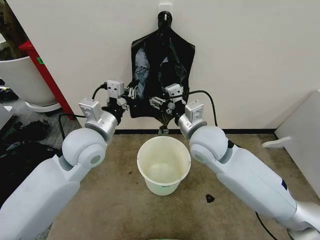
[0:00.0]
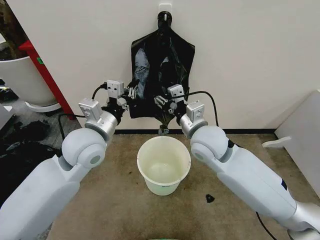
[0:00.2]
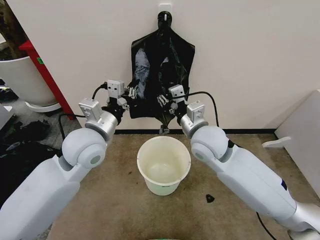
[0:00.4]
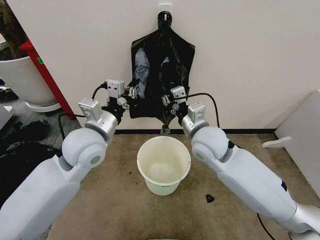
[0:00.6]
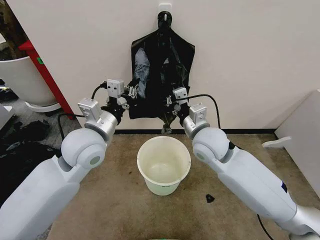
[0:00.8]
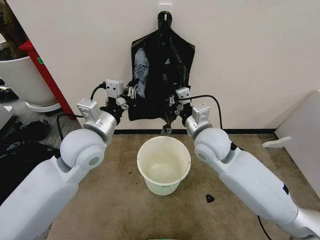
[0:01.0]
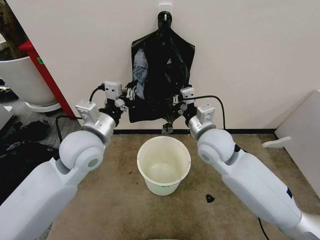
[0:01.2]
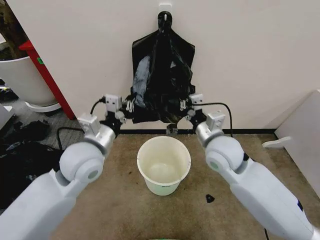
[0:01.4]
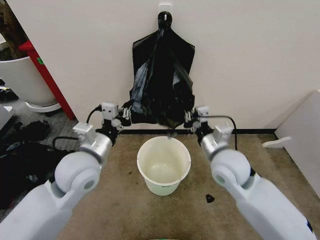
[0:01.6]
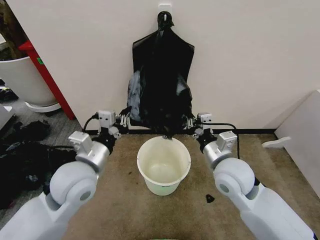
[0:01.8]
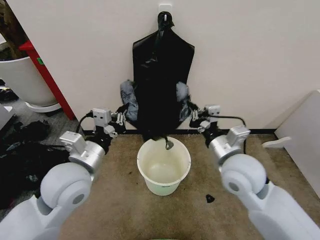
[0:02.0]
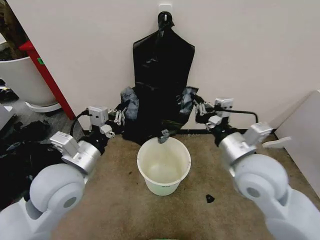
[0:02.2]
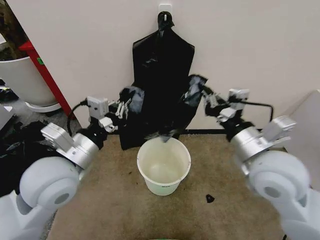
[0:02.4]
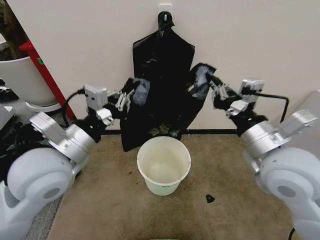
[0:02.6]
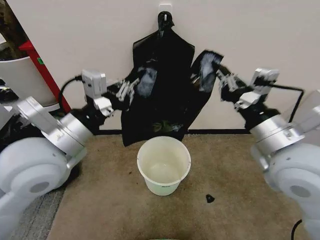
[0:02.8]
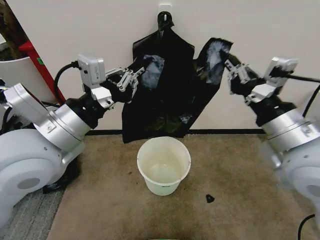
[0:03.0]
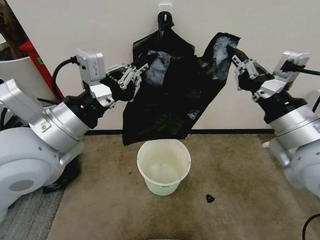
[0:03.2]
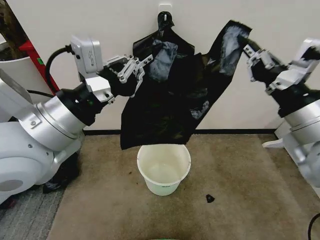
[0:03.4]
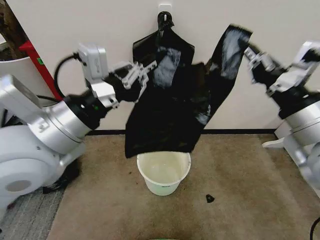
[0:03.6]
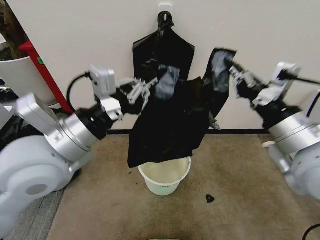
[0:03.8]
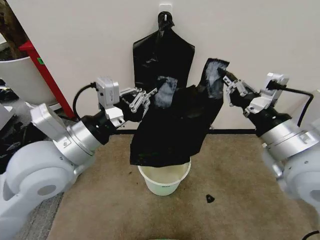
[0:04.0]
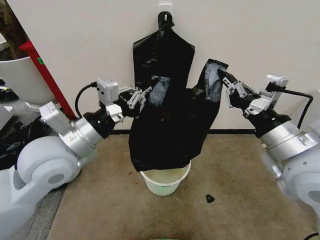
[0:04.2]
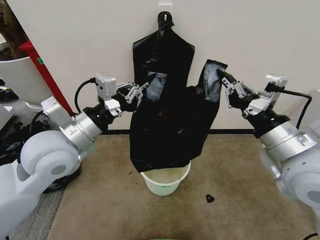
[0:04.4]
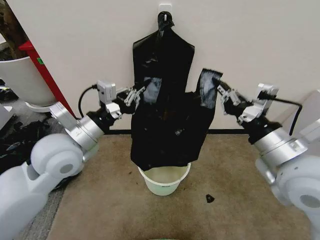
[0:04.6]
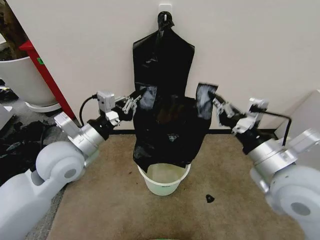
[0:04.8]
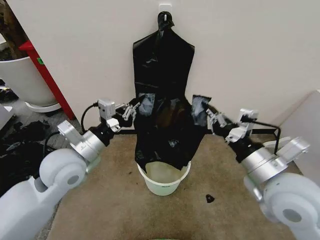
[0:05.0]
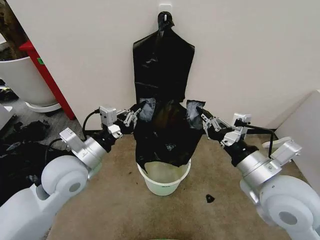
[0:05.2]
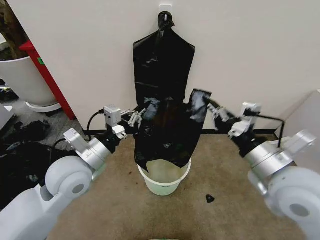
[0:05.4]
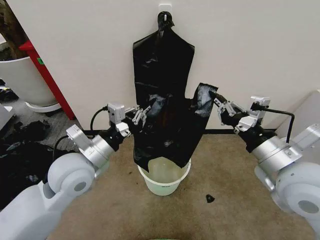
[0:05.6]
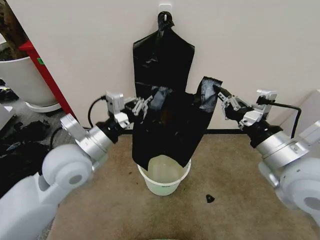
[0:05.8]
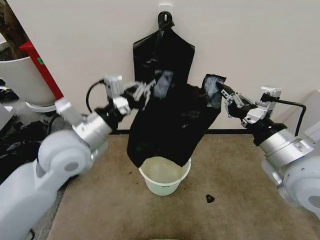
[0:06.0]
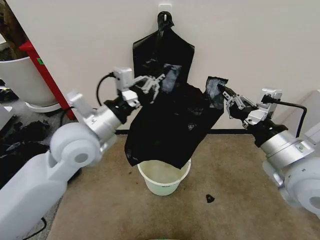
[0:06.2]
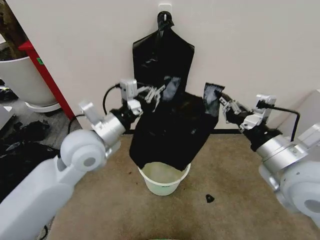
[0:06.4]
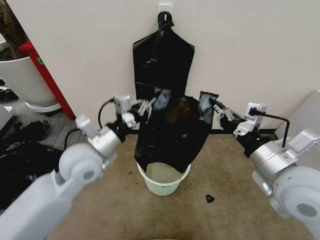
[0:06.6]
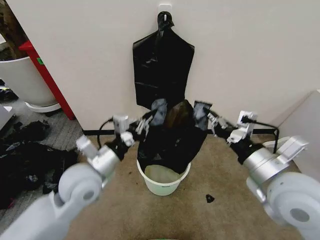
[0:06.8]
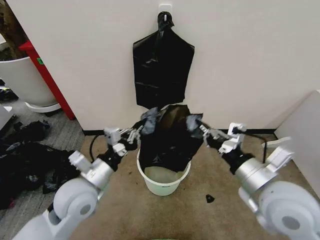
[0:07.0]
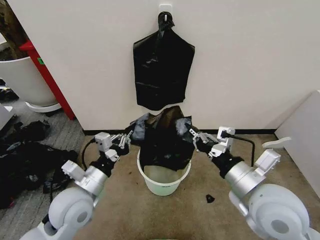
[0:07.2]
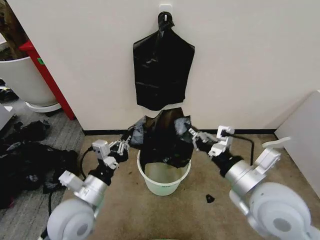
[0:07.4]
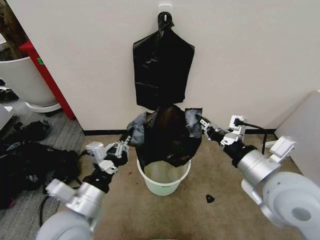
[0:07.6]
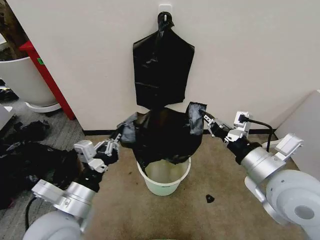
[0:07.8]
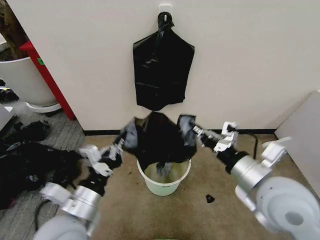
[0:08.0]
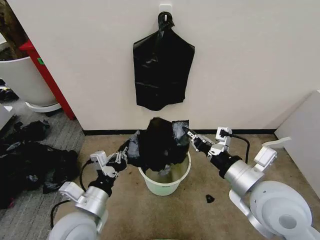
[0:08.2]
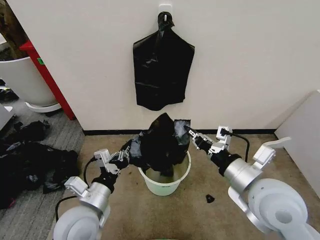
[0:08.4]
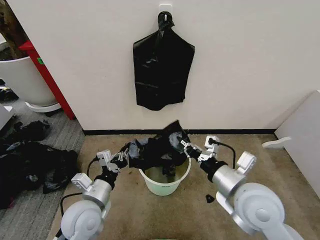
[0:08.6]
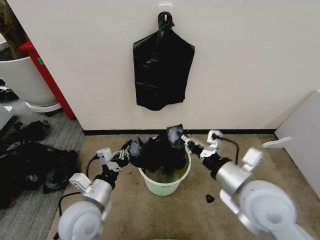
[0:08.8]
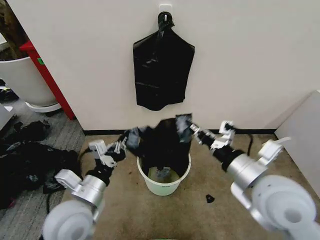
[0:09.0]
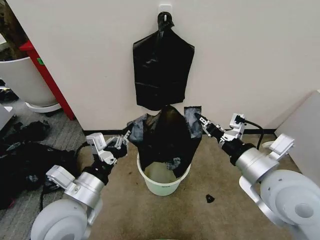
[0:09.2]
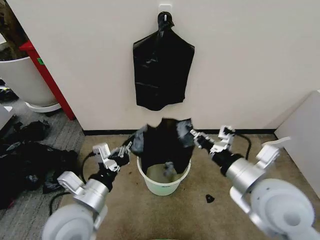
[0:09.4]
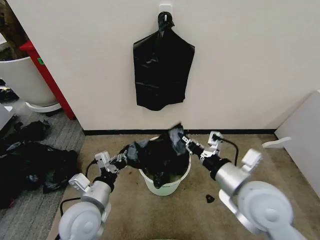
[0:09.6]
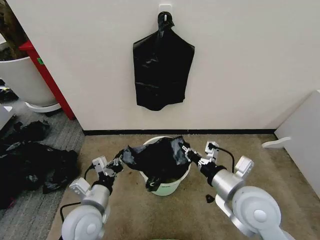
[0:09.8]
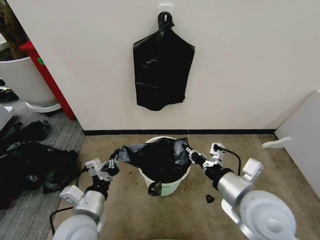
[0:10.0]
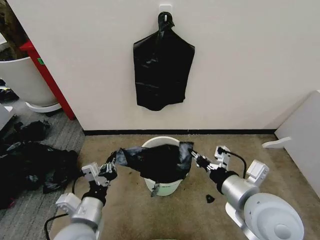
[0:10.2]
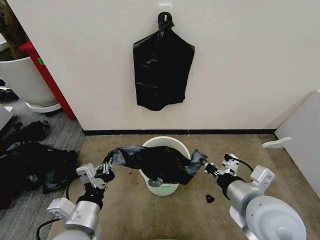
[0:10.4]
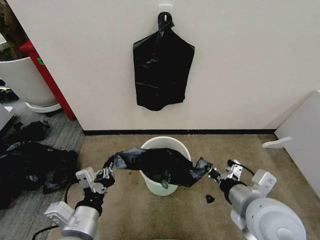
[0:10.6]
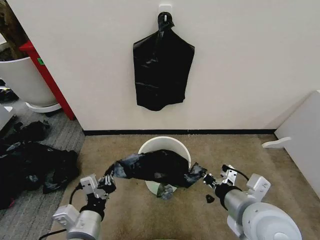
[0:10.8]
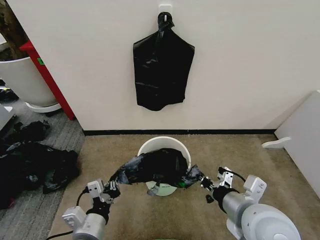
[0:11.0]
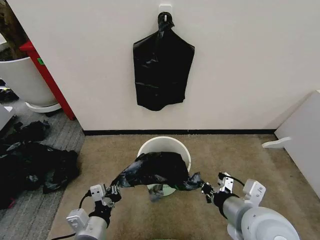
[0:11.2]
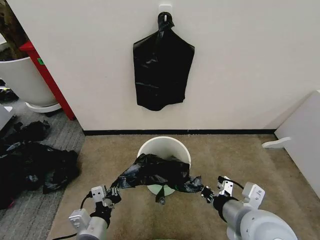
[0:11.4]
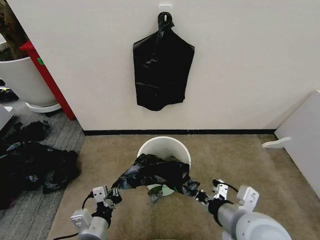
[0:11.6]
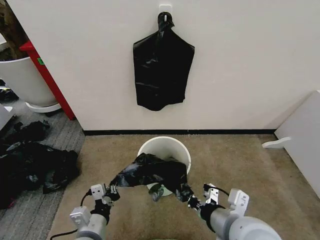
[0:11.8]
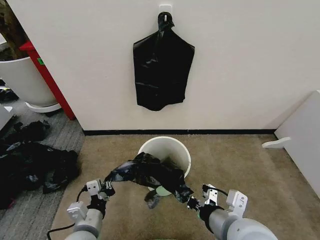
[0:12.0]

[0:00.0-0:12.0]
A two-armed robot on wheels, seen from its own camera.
Task of the whole recording: Place the garbage bag over the trash bin.
0:00.0 to 0:01.6: The right gripper is displaced to the right and downward by about 10 cm, and closes its fingers; the left gripper shifts by about 5 cm.
0:01.6 to 0:03.0: The right gripper shifts about 20 cm upward, backward and to the right. The left gripper is displaced upward by some 15 cm.
0:03.0 to 0:04.4: The left gripper ends up about 5 cm from where it was.
0:04.4 to 0:06.0: The left gripper reaches some 10 cm downward, then returns.
0:06.0 to 0:07.6: The left gripper travels downward and backward by some 15 cm.
0:07.6 to 0:09.0: The left gripper goes downward and returns, about 5 cm each way.
0:09.0 to 0:10.4: The left gripper goes up and down, some 10 cm each way, reversing 2 times.
0:10.4 to 0:12.0: The right gripper ends up roughly 5 cm from where it was; the left gripper heads downward, covering about 10 cm.

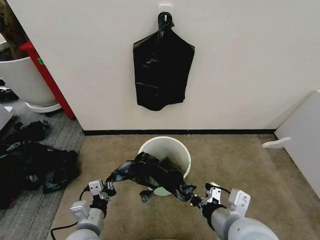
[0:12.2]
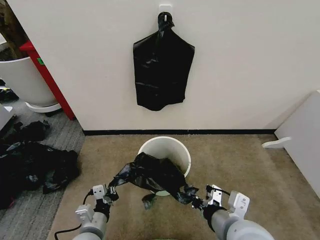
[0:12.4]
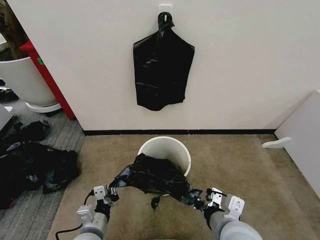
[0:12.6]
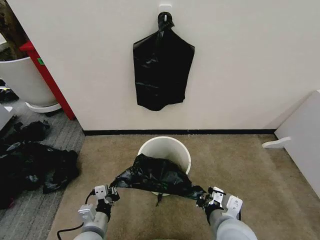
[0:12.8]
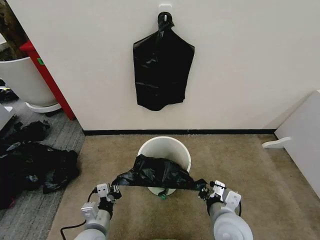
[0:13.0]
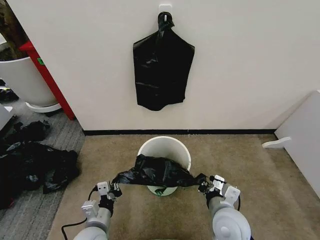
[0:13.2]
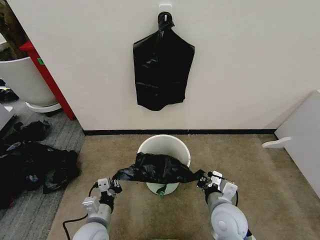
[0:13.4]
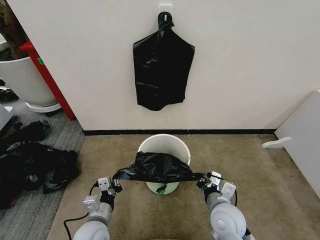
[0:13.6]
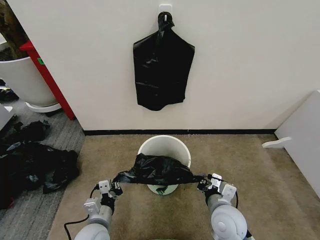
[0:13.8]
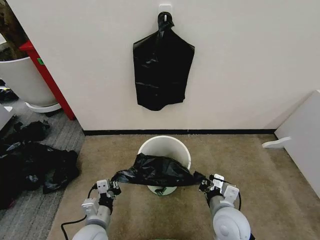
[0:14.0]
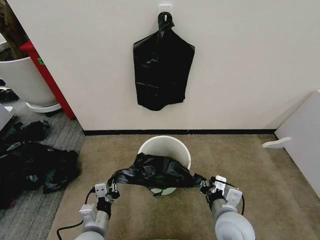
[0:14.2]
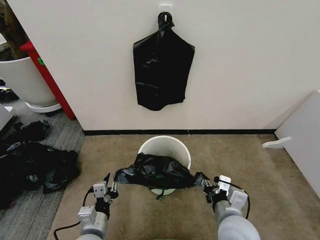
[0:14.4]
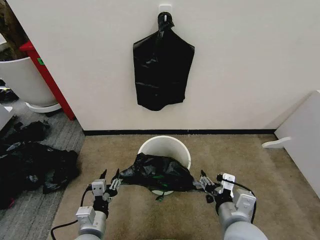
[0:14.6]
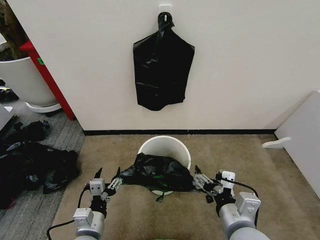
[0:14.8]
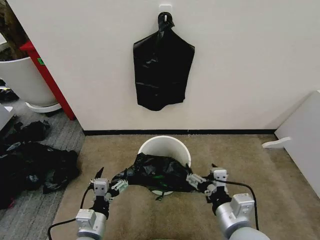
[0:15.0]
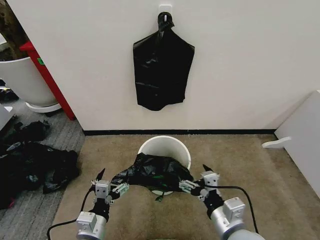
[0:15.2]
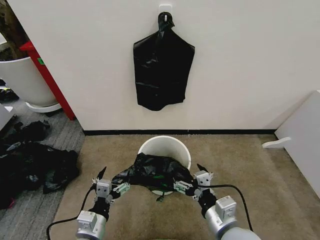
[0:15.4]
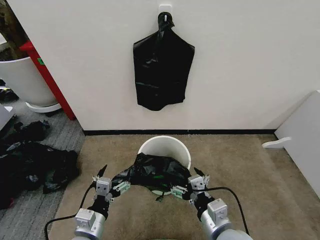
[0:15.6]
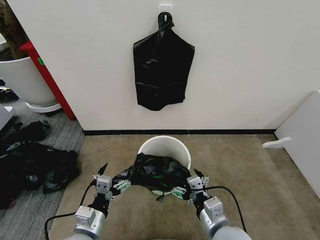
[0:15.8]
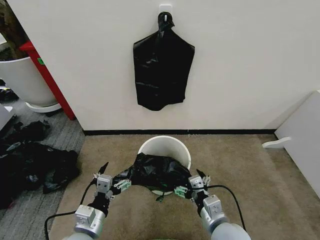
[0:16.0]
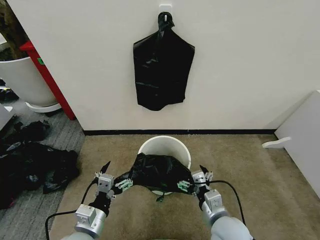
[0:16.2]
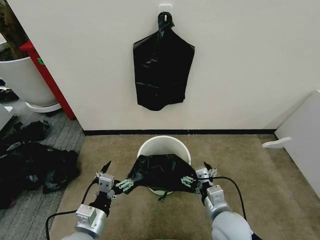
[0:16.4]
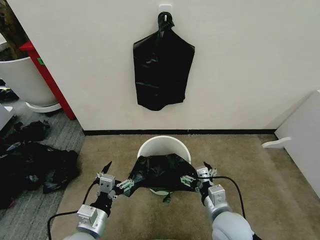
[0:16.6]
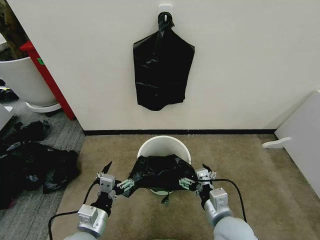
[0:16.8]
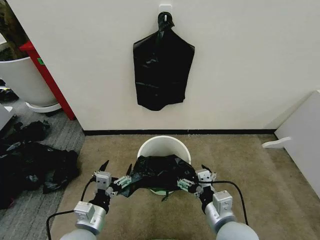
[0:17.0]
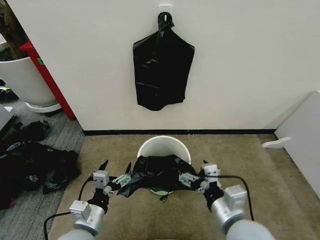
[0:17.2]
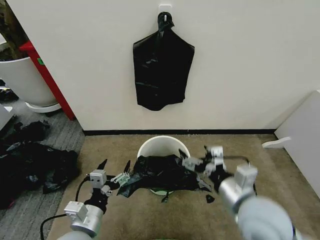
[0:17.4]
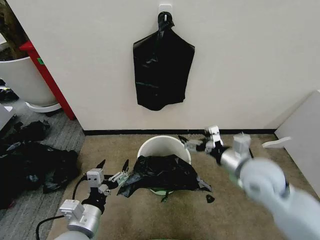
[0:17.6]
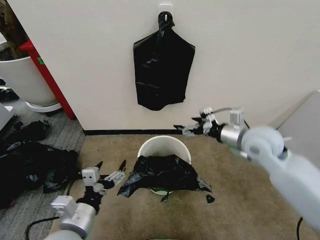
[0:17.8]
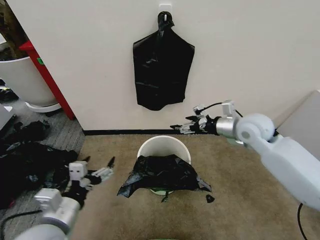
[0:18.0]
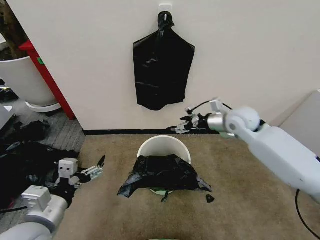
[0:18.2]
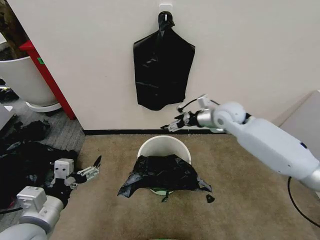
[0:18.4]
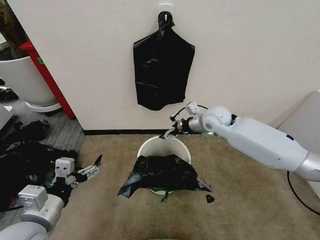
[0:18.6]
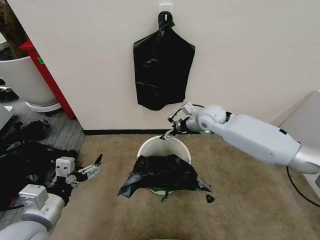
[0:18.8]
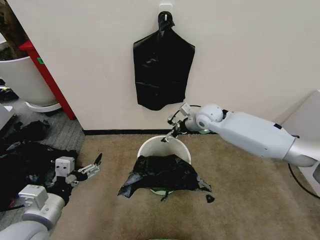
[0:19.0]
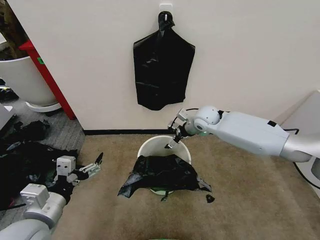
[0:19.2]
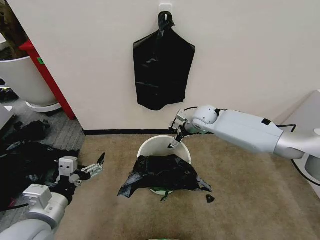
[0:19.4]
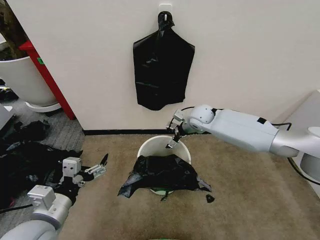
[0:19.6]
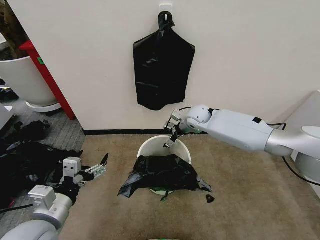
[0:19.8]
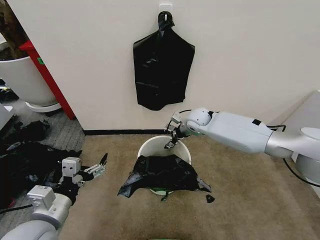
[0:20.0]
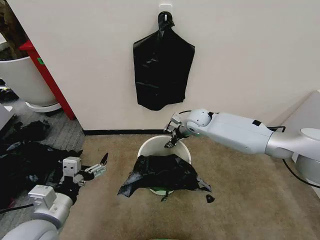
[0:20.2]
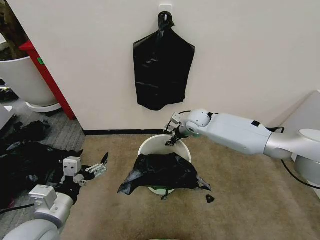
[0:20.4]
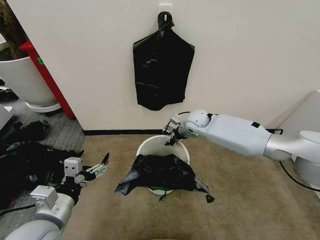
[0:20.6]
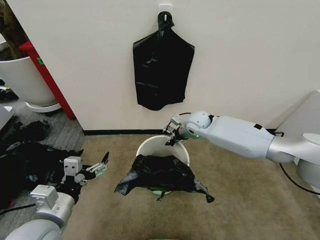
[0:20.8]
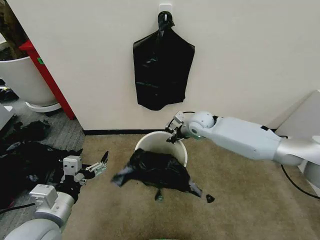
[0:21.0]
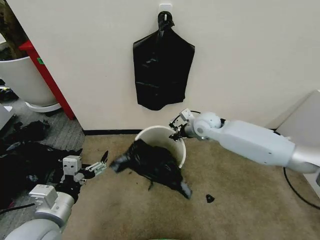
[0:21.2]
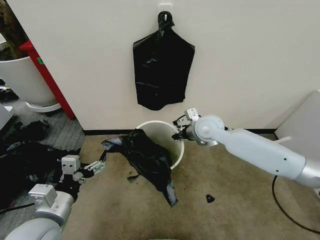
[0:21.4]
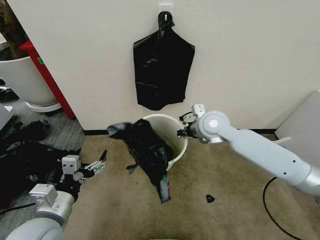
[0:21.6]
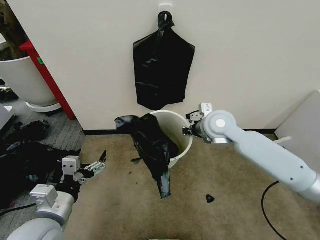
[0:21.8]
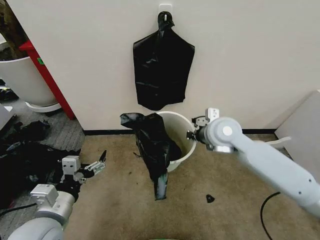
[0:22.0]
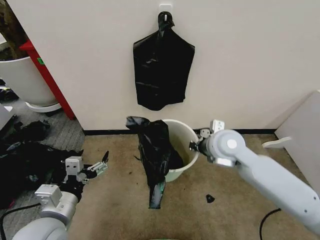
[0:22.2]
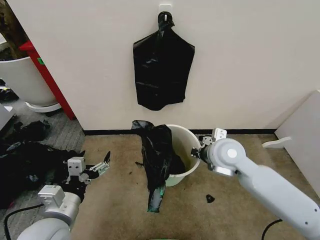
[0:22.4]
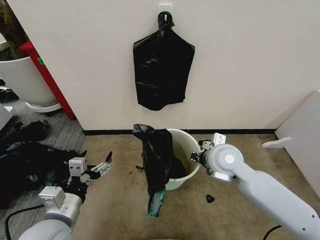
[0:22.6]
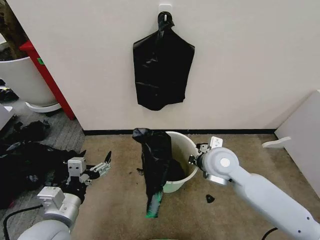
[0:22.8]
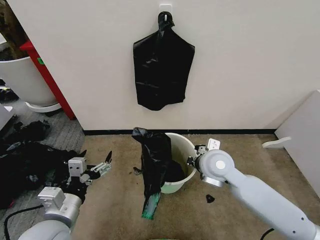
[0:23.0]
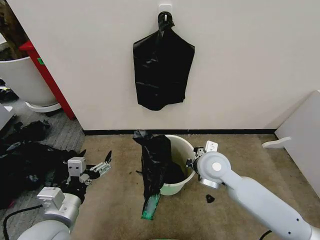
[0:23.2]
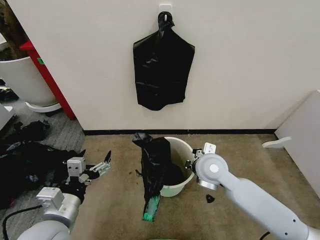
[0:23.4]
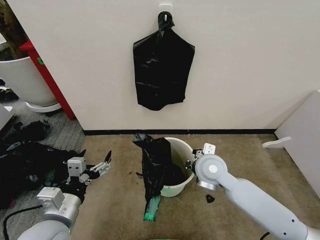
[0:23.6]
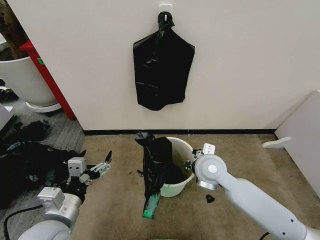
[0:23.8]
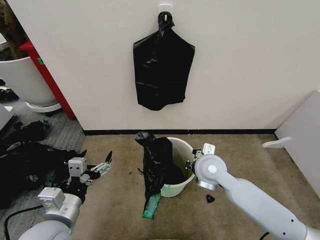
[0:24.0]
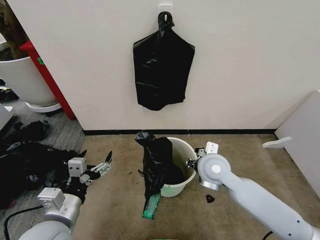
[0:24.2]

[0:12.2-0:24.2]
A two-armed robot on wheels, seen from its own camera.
Task of the whole recording: Place the garbage bag over the trash bin.
0:12.2 to 0:13.8: The right gripper heads downward and forward, covering about 15 cm.
0:13.8 to 0:15.2: The right gripper travels backward and upward by approximately 10 cm, and opens its fingers, while the left gripper moves some 5 cm, and opens.
0:15.2 to 0:16.6: The right gripper is displaced forward by approximately 5 cm.
0:16.6 to 0:18.2: The right gripper moves forward and upward, some 30 cm; the left gripper shifts roughly 15 cm upward and to the left.
0:18.2 to 0:19.8: The right gripper shifts some 15 cm to the left, forward and downward.
0:19.8 to 0:21.2: The right gripper heads backward, covering some 5 cm, and closes.
0:21.2 to 0:22.6: The right gripper heads backward, covering roughly 15 cm.
0:22.6 to 0:24.2: The right gripper opens.
